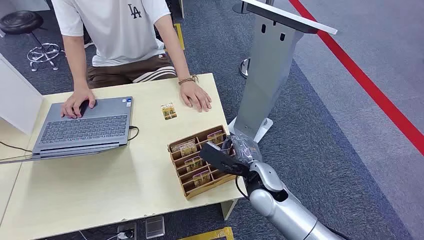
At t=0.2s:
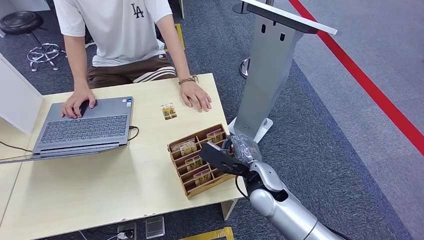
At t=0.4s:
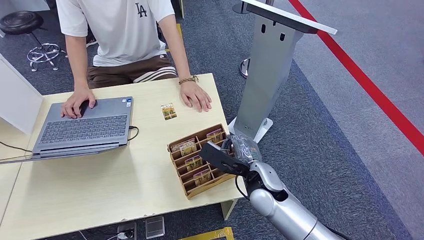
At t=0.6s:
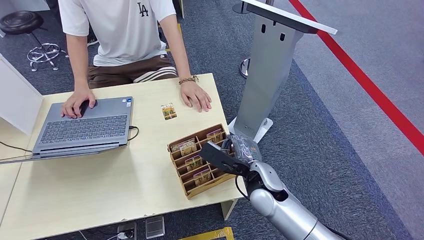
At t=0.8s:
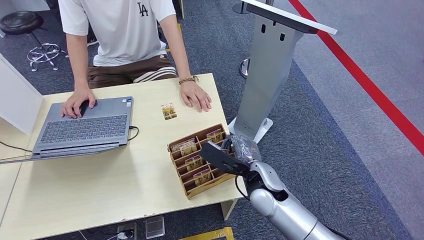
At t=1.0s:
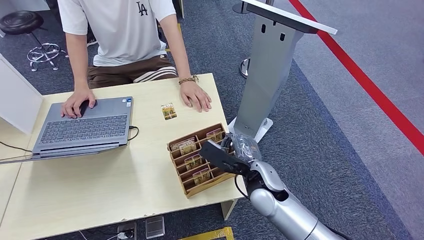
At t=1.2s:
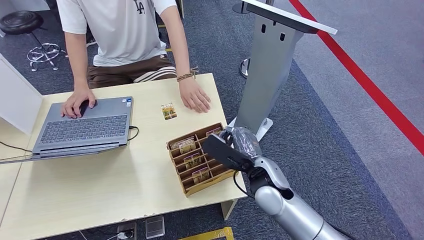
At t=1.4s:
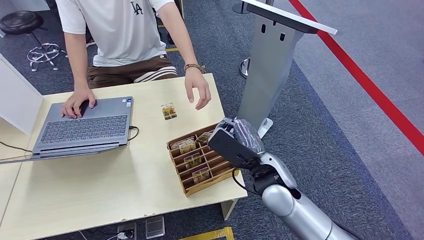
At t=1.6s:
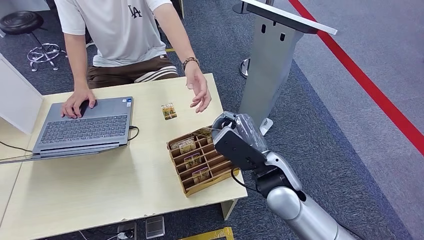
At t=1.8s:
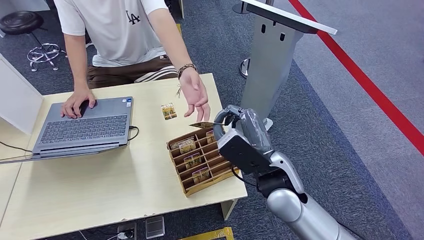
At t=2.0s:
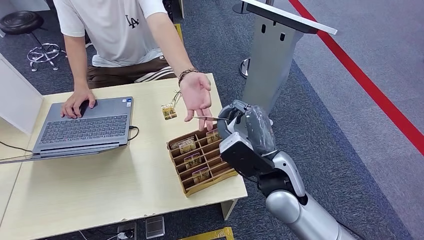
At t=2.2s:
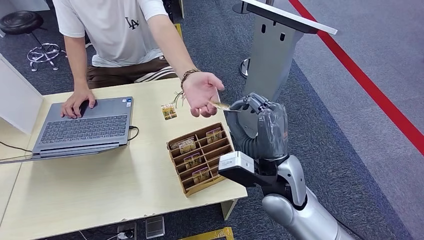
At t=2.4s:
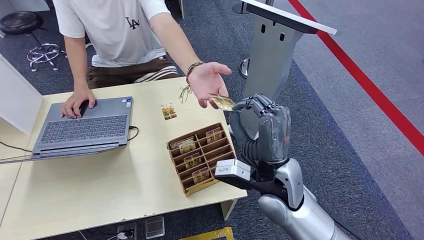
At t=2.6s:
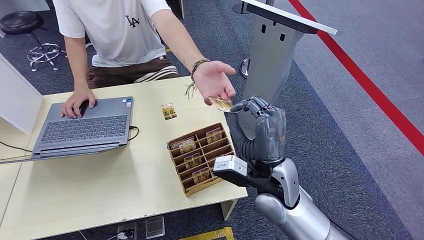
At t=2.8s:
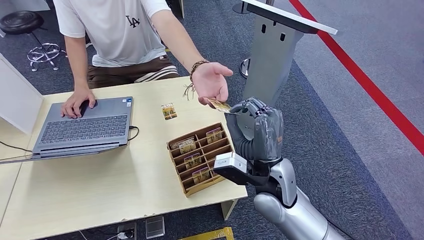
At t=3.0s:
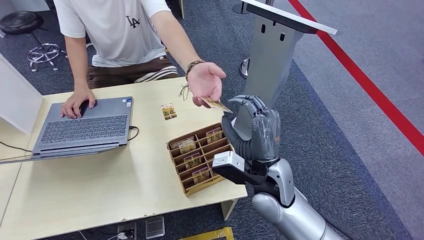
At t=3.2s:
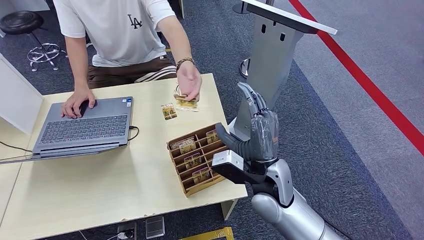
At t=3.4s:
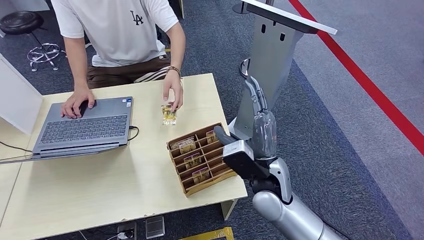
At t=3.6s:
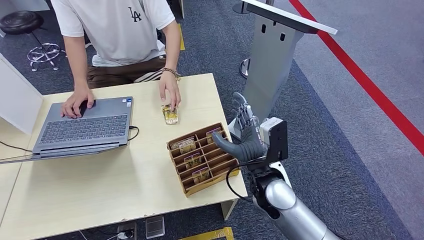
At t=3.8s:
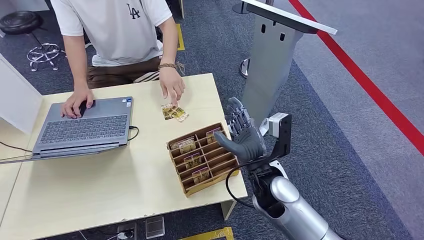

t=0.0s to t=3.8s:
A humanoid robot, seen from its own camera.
Step, t=0.0s to t=1.8s: Pick up the key card from the card box.
Step, t=2.0s to t=3.6s: Hand the key card to the target.
t=1.2s to t=2.6s: The right hand travels upward by about 5 cm.

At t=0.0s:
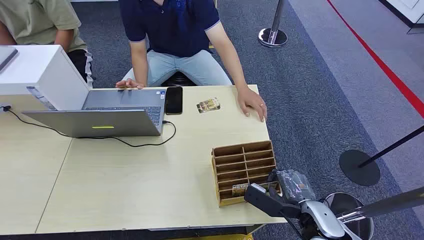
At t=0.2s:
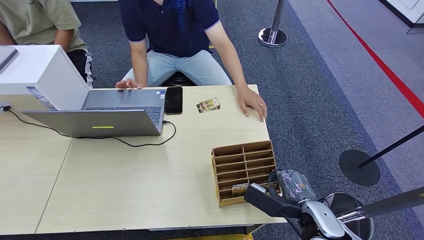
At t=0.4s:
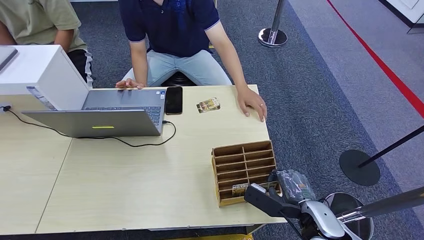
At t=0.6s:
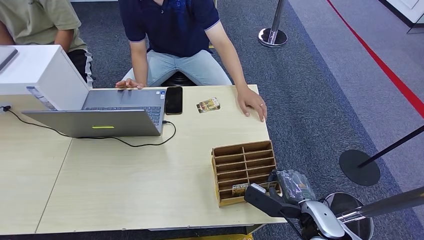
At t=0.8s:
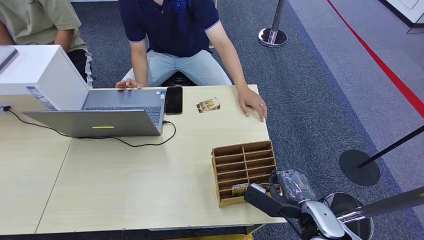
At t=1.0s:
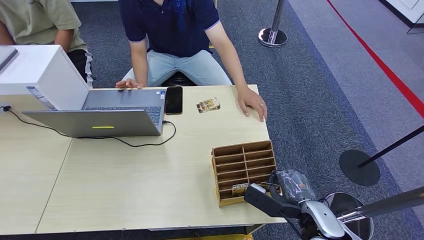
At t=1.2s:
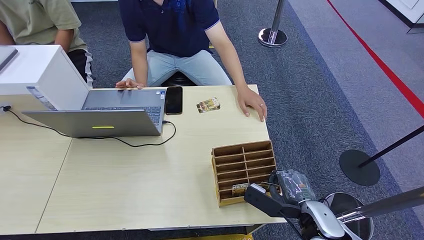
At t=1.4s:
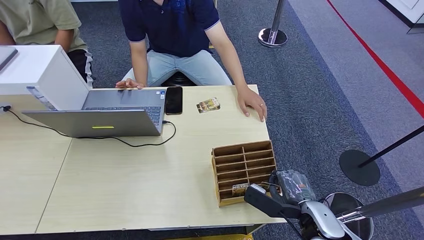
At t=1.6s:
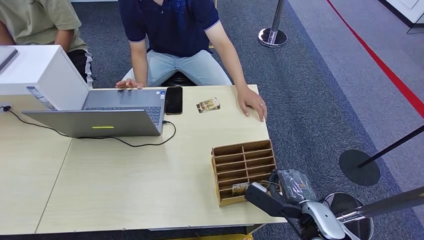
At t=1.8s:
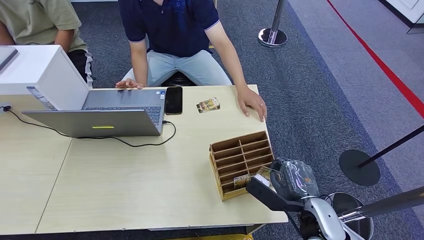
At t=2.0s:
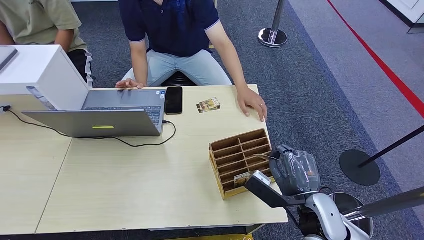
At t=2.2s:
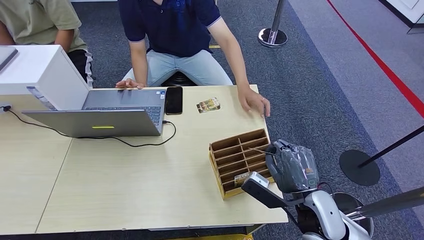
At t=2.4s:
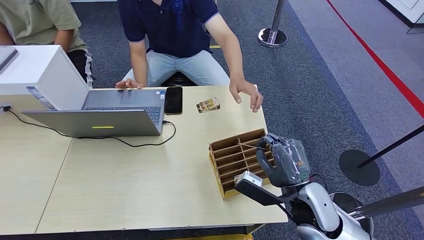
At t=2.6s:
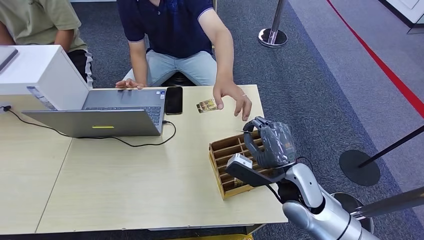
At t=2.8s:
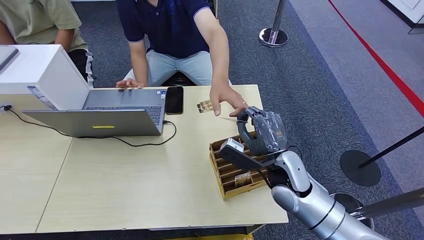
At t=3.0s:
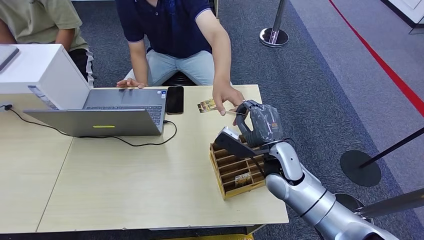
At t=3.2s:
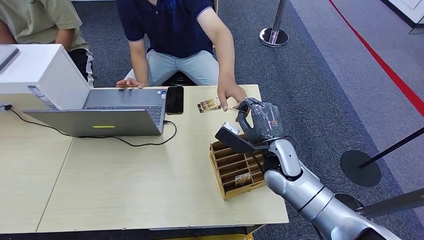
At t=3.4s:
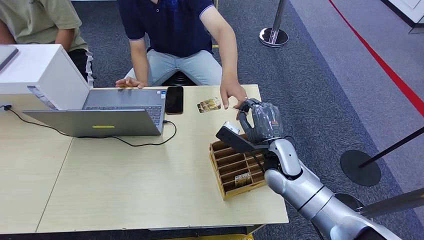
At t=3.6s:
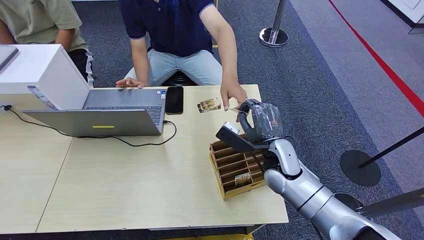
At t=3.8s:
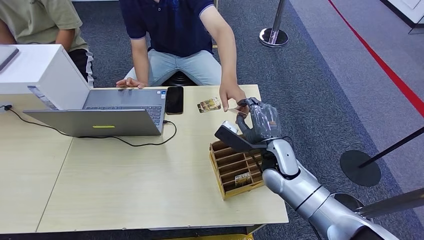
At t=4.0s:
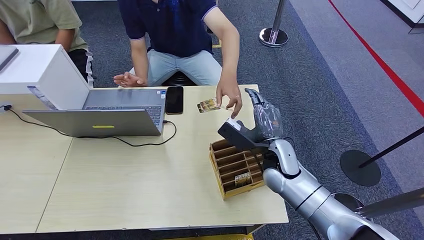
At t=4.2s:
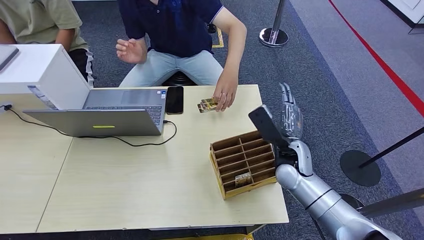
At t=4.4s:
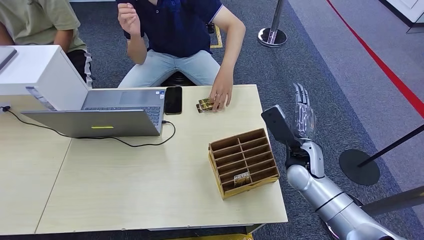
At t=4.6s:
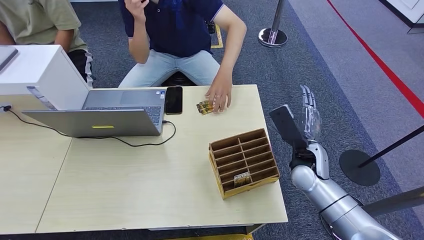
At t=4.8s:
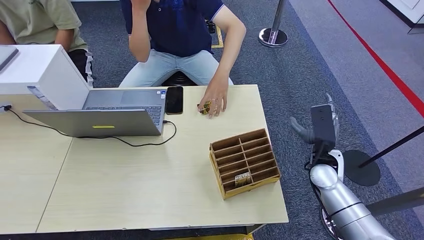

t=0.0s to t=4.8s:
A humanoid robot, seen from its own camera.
Step, t=0.0s to t=2.0s: Pick up the key card from the card box.
Step, t=2.2s to t=4.8s: Hand the key card to the target.
t=1.6s to t=3.2s: The right hand shifts approximately 15 cm forward and to the left.
t=3.2s to t=4.8s: The right hand is displaced to the right by roughly 10 cm.
